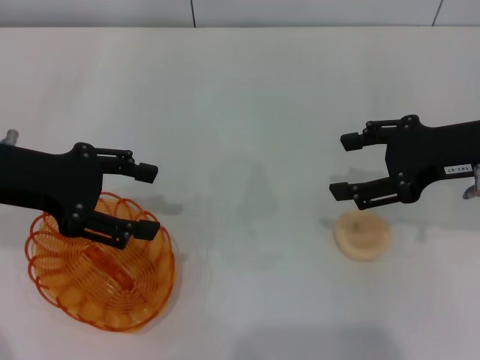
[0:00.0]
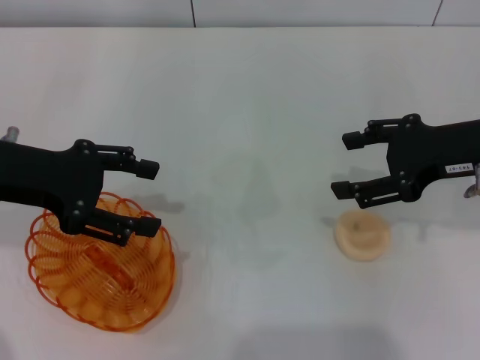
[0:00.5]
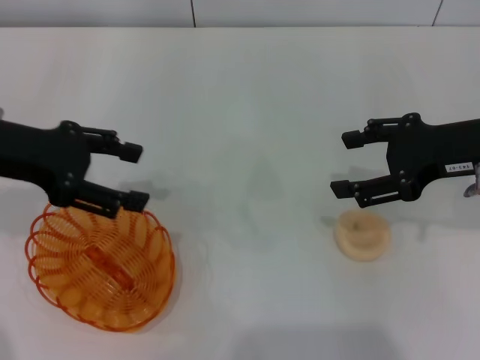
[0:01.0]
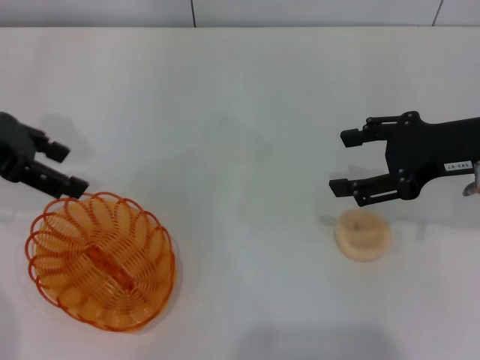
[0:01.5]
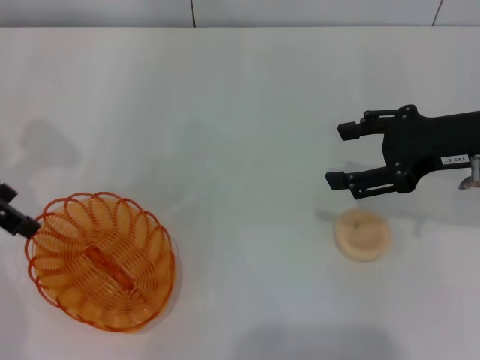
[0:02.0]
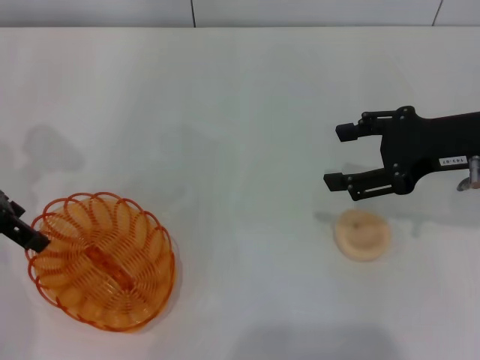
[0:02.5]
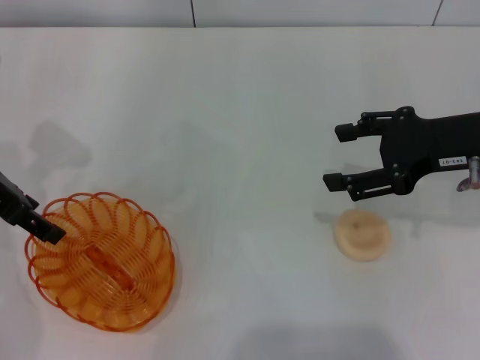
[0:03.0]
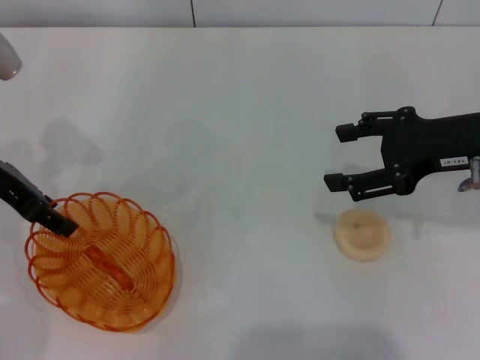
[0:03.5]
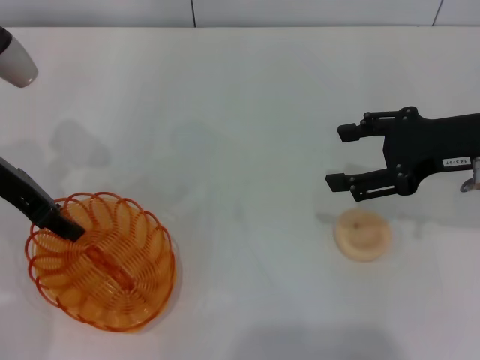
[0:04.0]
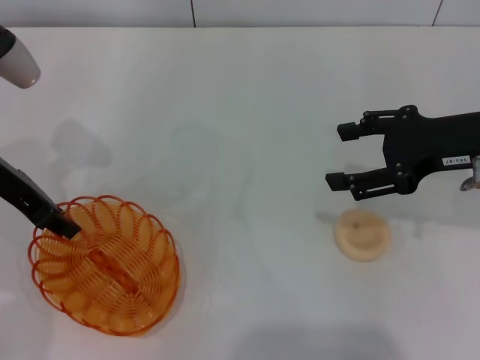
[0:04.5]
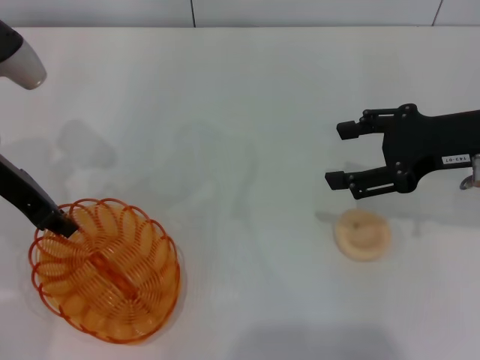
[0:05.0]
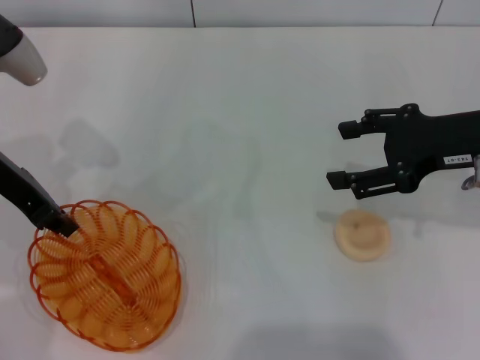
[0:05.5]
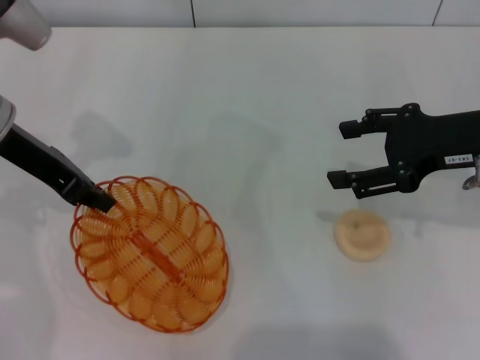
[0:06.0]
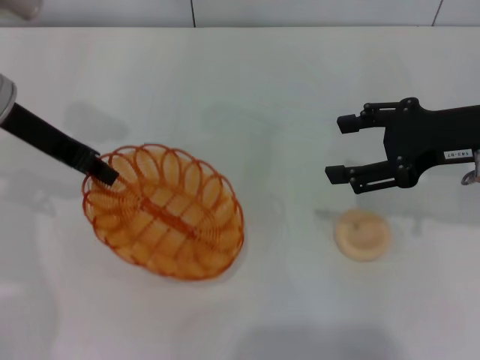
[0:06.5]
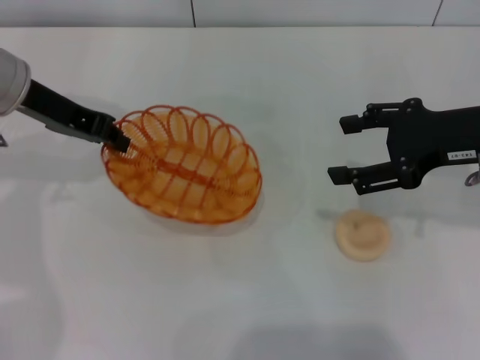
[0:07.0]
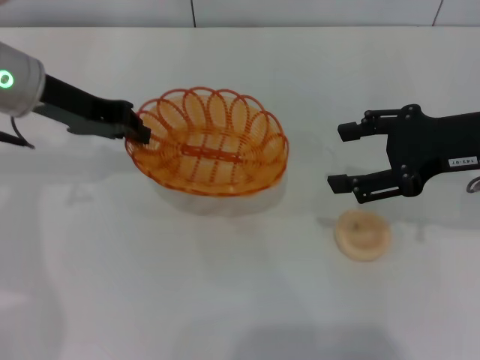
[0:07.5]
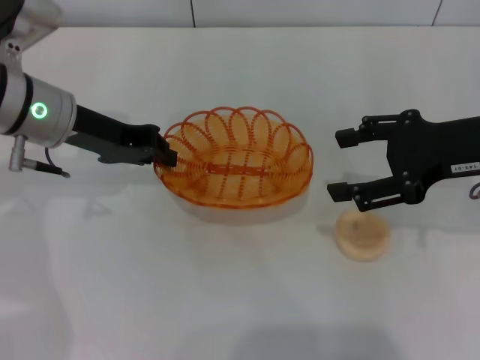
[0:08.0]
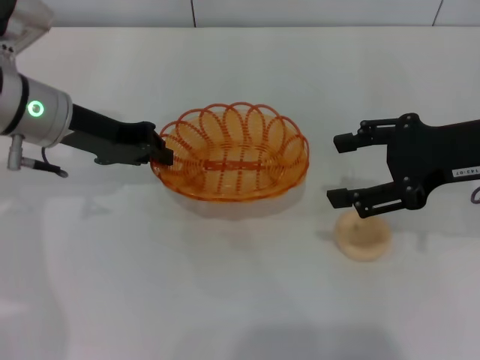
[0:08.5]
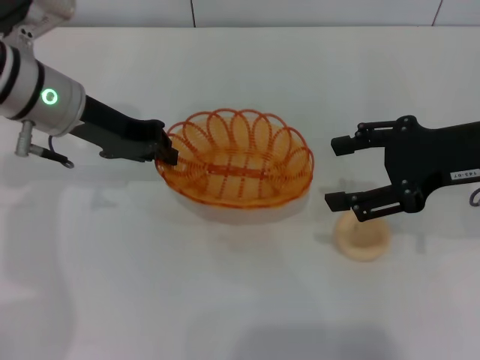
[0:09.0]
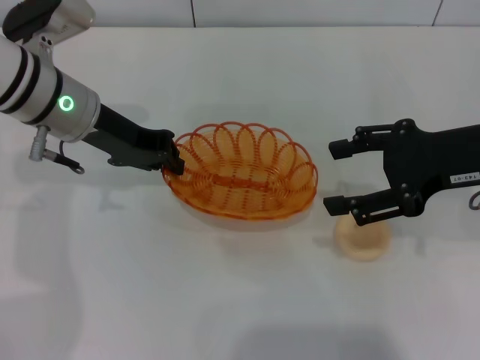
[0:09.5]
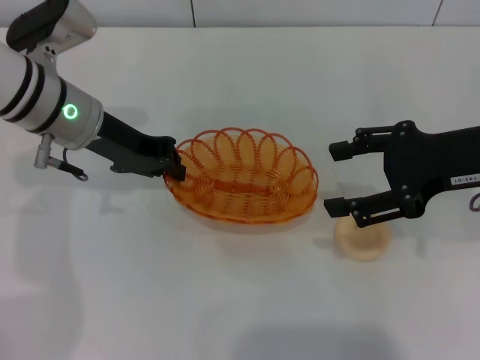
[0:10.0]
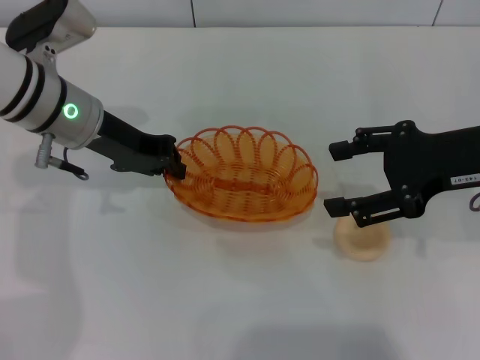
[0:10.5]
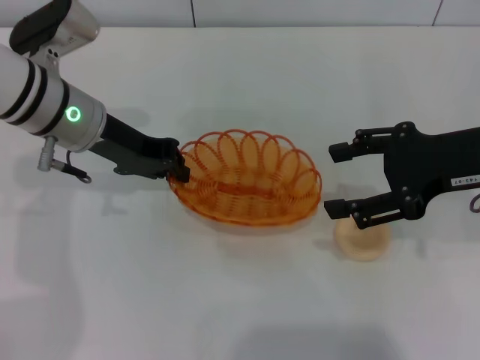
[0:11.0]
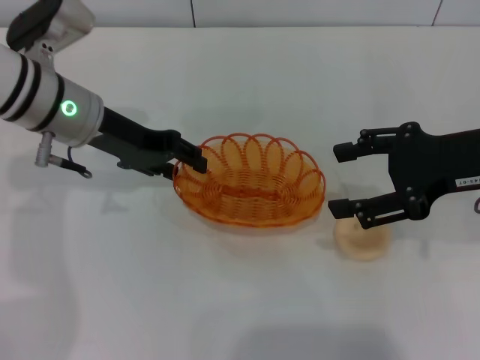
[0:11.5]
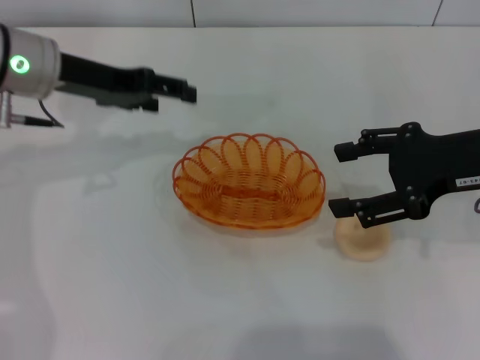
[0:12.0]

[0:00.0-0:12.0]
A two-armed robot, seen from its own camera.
Step, 0:00.0 to 0:06.5: Pick up the basket with the left gripper.
0:00.0 to 0:02.0: The left gripper ends up approximately 5 cm from where it was.
0:02.0 to 0:04.0: The left gripper heads downward, covering approximately 5 cm, and closes its fingers.
0:04.0 to 0:06.0: The left gripper closes up.
0:06.0 to 0:08.0: The left gripper moves approximately 5 cm.
0:08.0 to 0:10.0: The grippers make only small movements.
0:10.0 to 0:12.0: The left gripper shifts by some 5 cm, and opens.

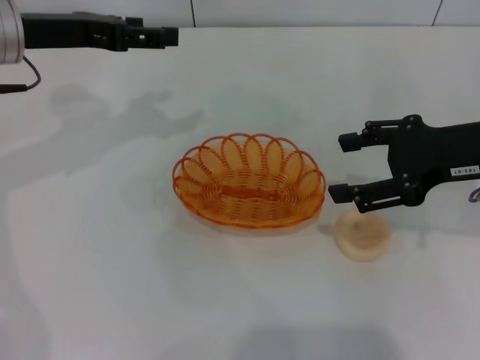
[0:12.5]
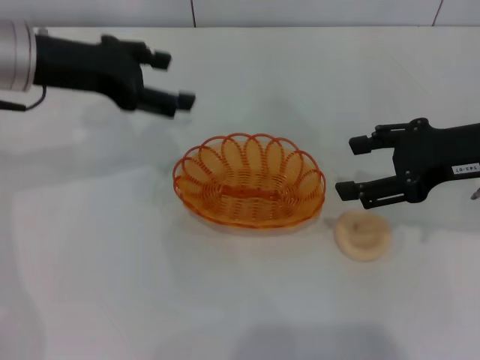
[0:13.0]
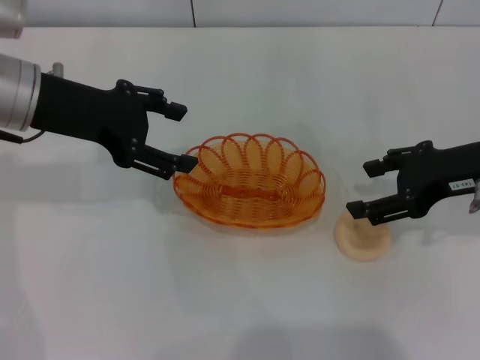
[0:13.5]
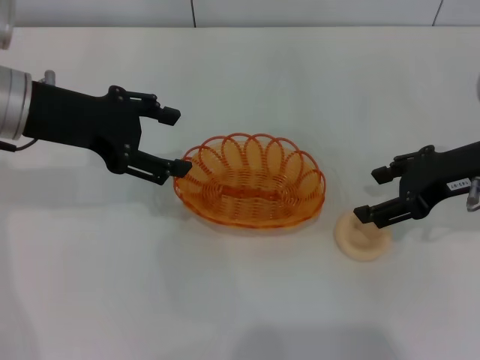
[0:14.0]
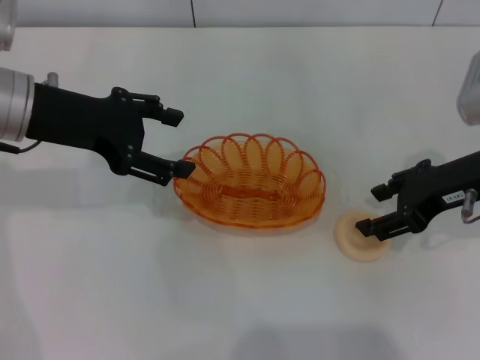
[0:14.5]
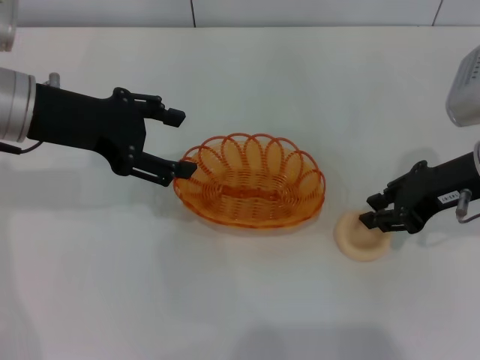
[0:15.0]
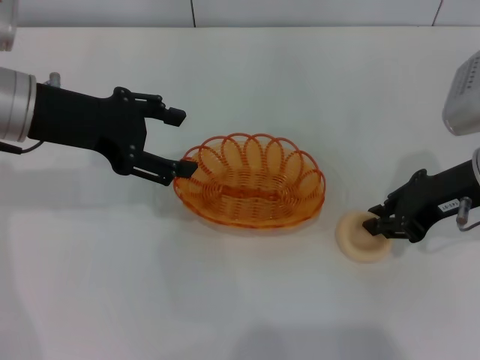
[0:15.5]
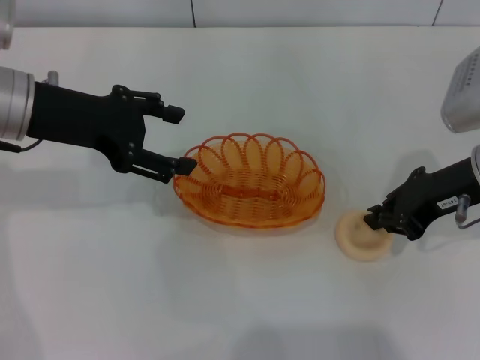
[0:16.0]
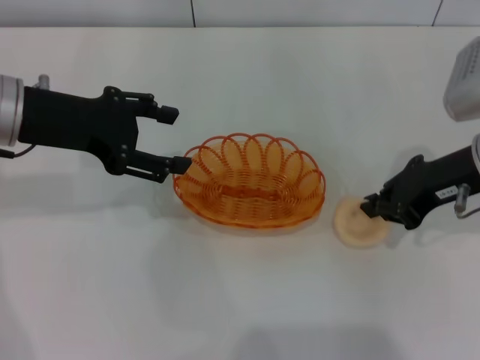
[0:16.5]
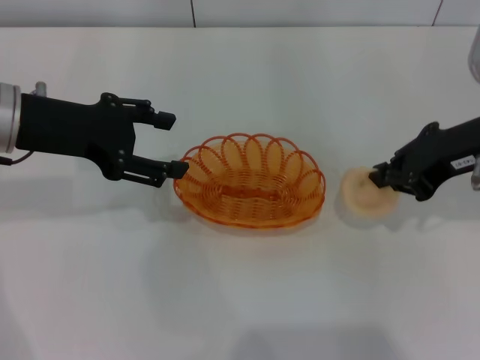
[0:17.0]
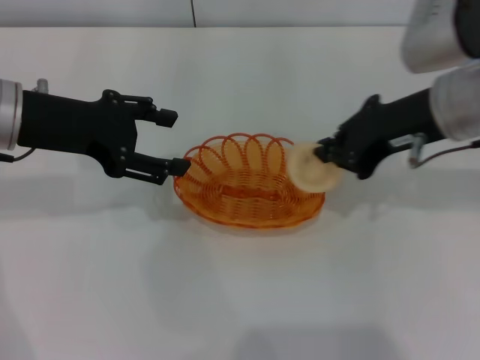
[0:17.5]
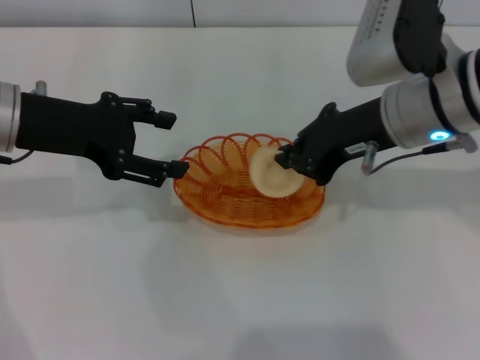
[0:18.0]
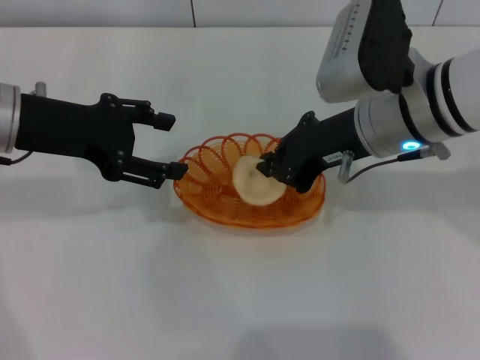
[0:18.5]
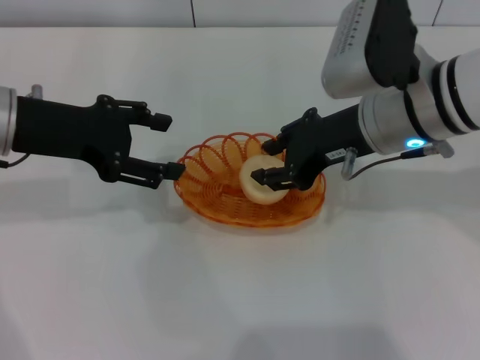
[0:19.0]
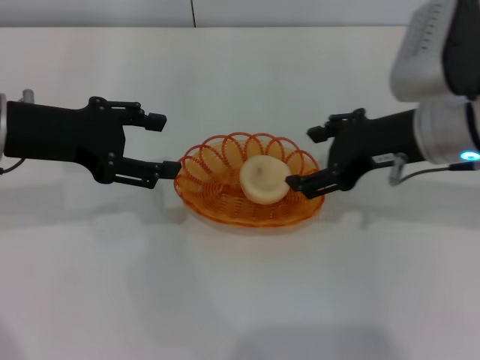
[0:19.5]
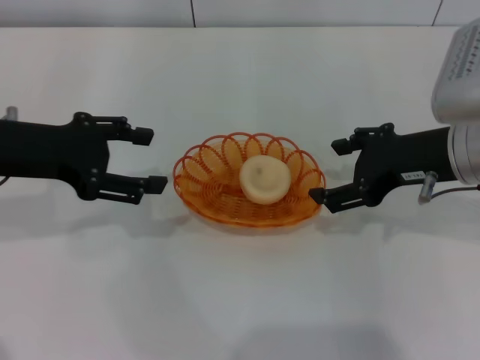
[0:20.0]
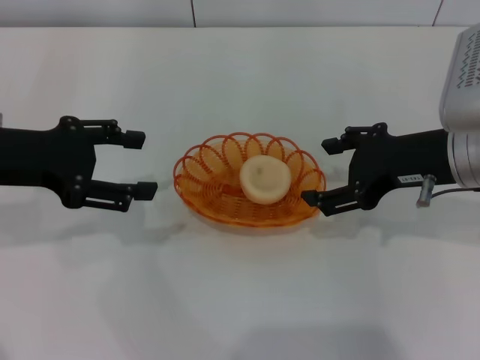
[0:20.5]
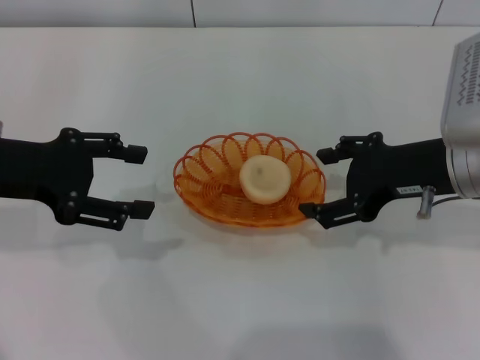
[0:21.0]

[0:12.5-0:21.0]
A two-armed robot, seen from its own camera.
Step, 0:12.5 to 0:17.0: Pick up the egg yolk pastry with the right gripper.
Step, 0:17.5 to 0:19.5: Place the egg yolk pastry into the basket with the right gripper.
0:12.5 to 0:14.5: The left gripper shifts by roughly 5 cm.
0:14.5 to 0:16.5: The right gripper closes its fingers.
0:16.5 to 0:19.0: The right gripper is displaced to the left by roughly 10 cm.
0:19.0 to 0:21.0: The right gripper heads to the right, covering some 5 cm, and opens its fingers.

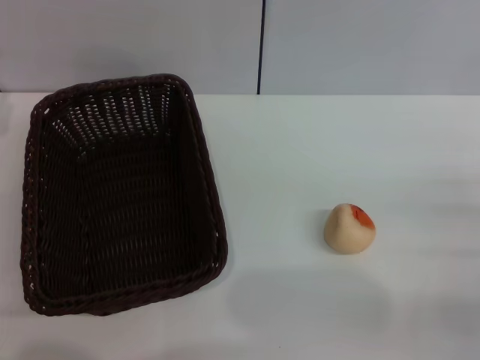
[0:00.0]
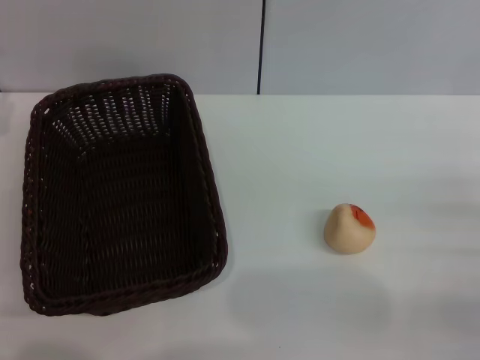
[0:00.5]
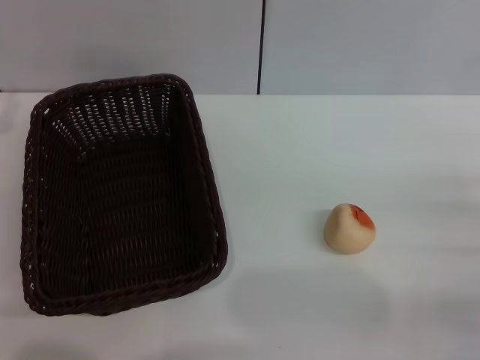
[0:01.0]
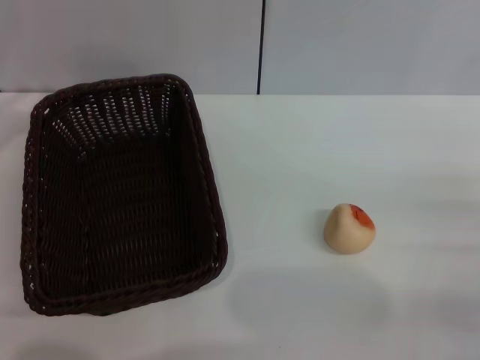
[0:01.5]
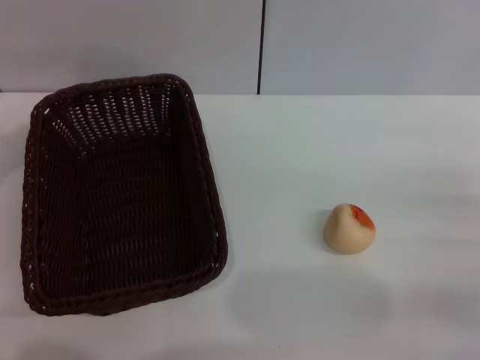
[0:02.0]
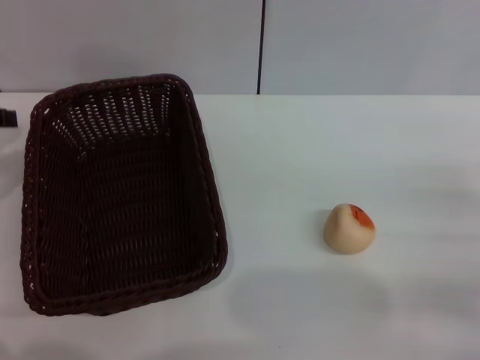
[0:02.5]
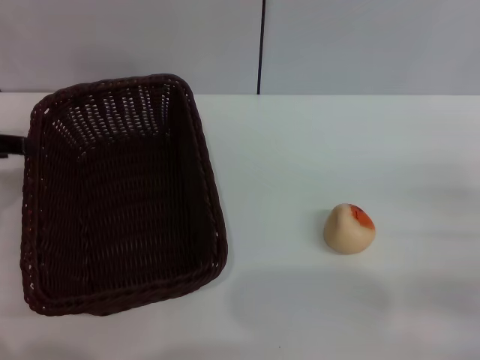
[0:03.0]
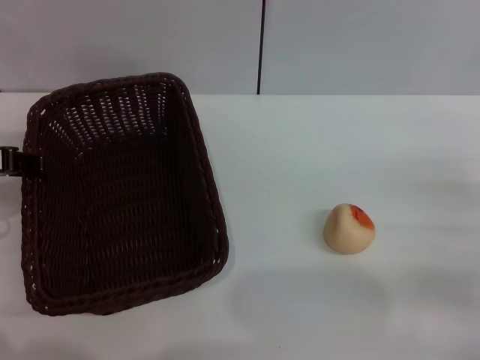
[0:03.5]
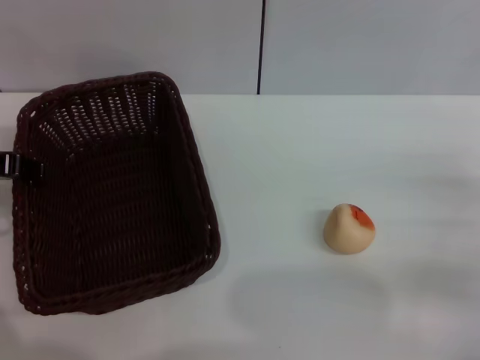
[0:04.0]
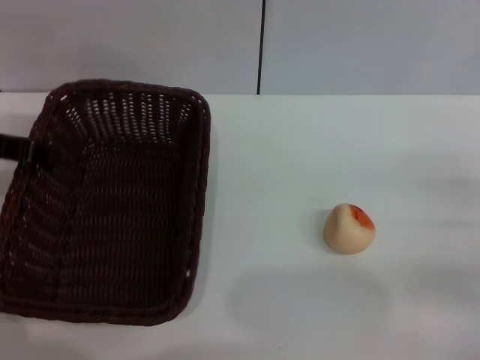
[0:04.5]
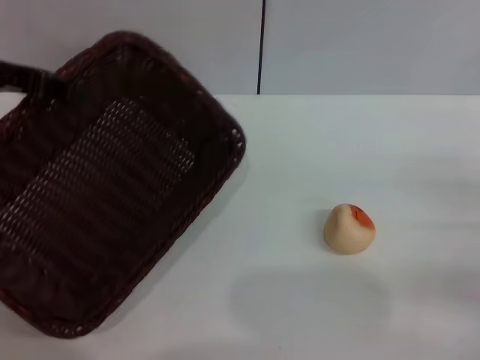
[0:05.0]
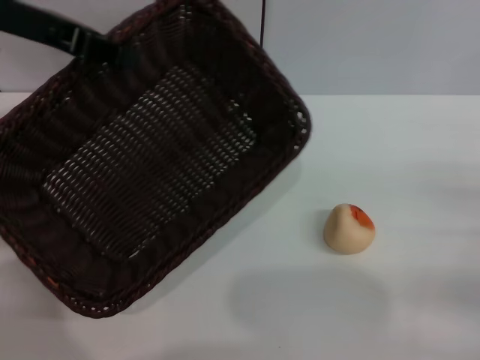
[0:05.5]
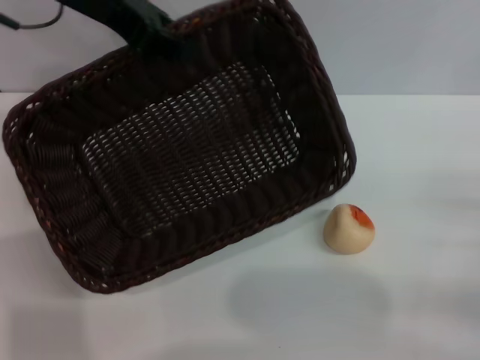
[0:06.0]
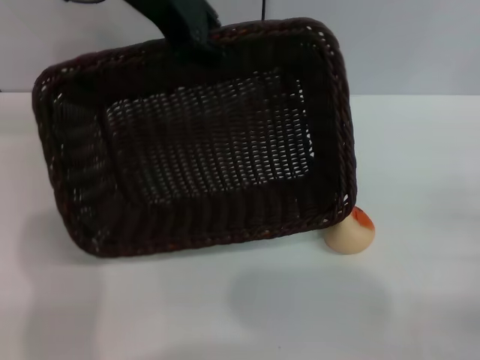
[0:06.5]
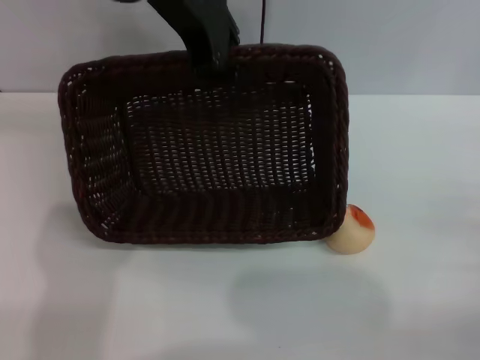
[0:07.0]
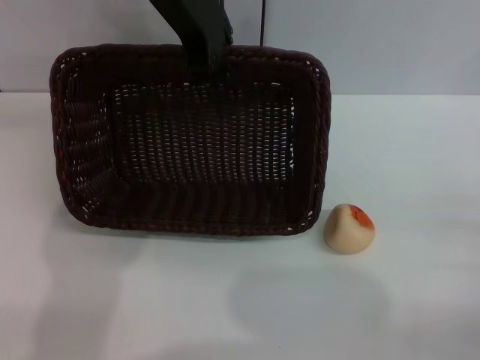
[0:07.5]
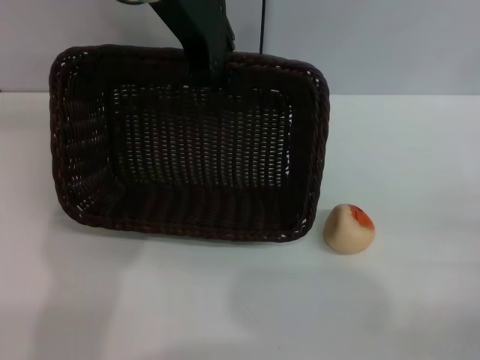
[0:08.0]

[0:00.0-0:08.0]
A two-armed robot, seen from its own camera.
0:02.0 to 0:04.0: The left gripper goes roughly 5 cm to the right and downward.
0:04.0 to 0:06.0: The left gripper goes approximately 20 cm upward, to the right and forward, and closes its fingers.
0:06.0 to 0:08.0: The left gripper moves to the right, some 10 cm.